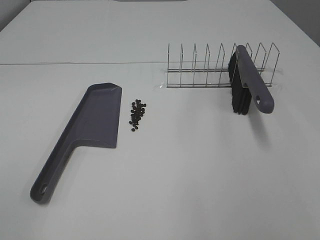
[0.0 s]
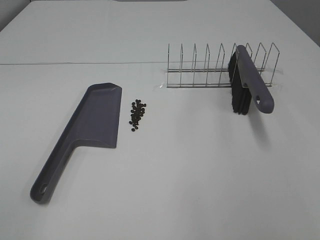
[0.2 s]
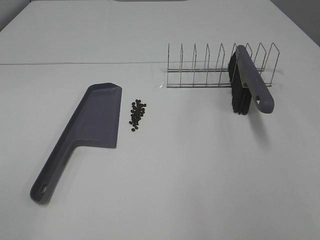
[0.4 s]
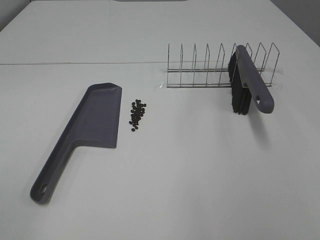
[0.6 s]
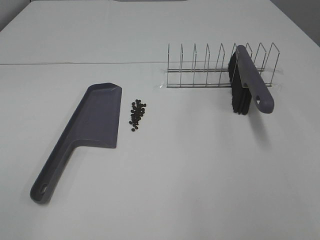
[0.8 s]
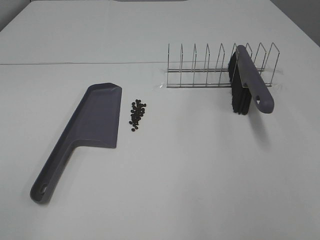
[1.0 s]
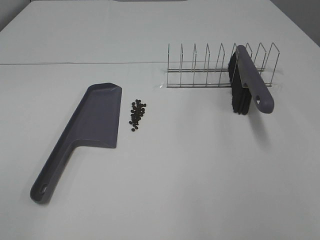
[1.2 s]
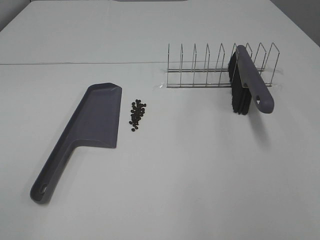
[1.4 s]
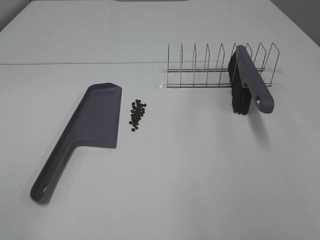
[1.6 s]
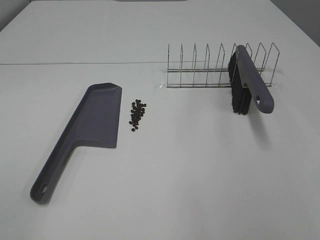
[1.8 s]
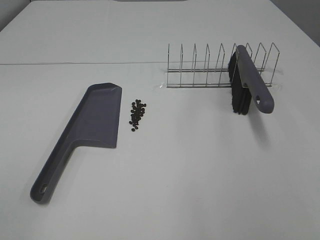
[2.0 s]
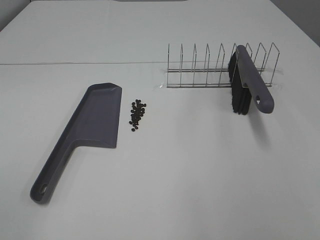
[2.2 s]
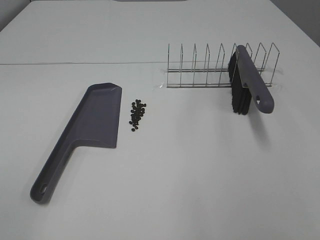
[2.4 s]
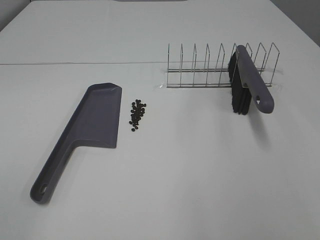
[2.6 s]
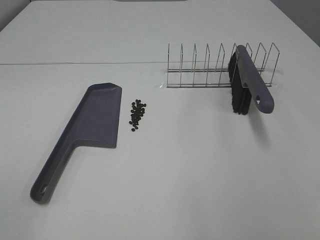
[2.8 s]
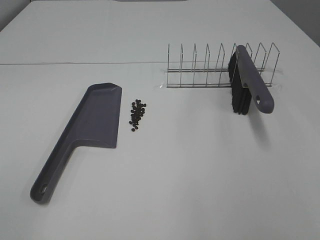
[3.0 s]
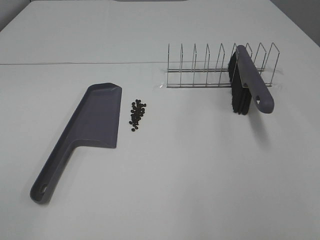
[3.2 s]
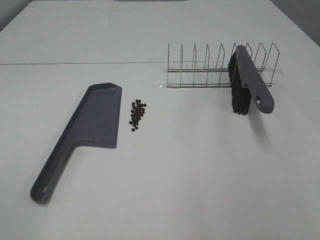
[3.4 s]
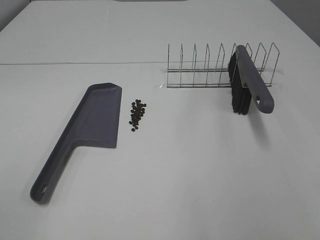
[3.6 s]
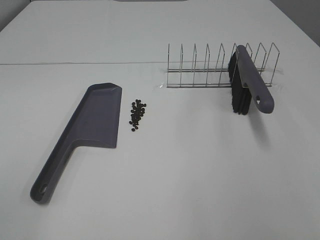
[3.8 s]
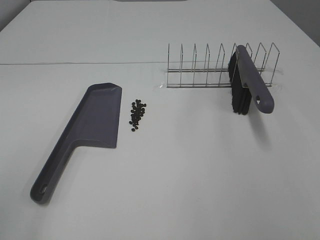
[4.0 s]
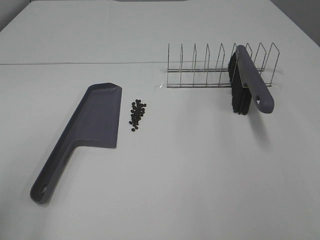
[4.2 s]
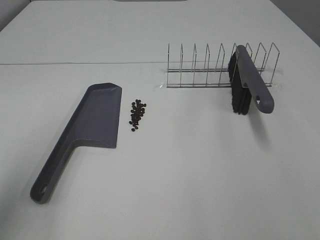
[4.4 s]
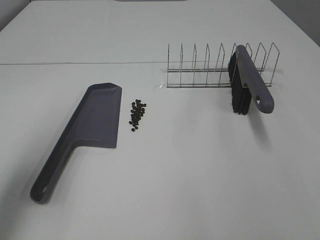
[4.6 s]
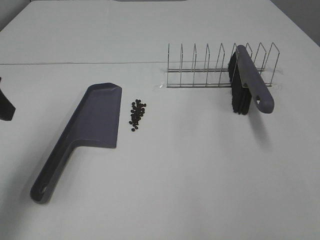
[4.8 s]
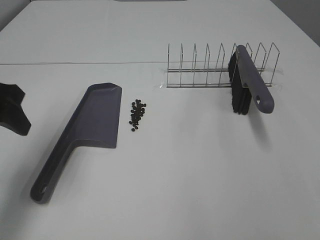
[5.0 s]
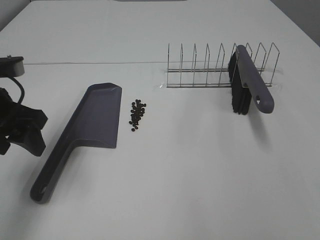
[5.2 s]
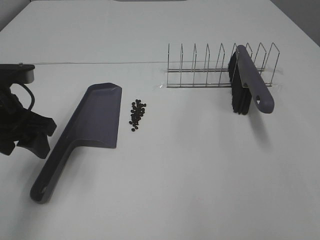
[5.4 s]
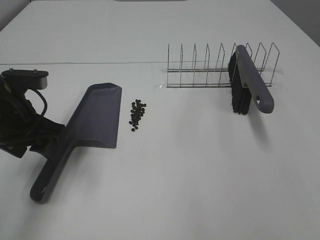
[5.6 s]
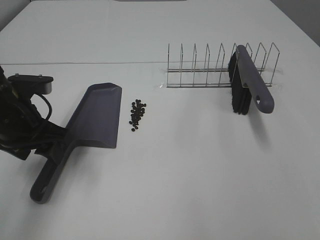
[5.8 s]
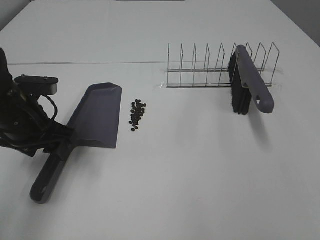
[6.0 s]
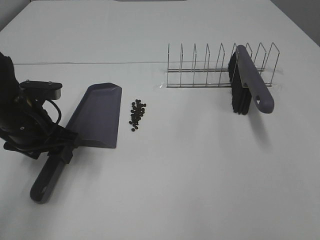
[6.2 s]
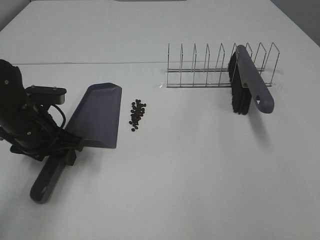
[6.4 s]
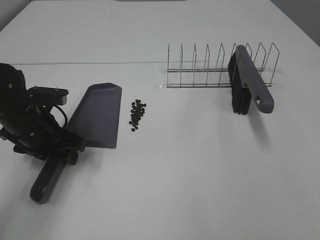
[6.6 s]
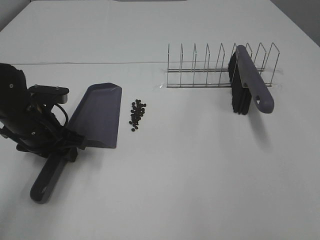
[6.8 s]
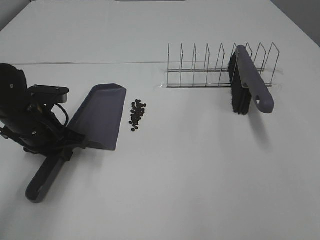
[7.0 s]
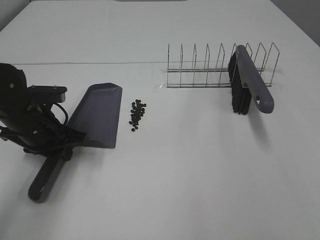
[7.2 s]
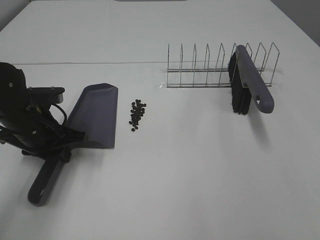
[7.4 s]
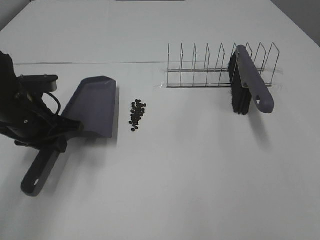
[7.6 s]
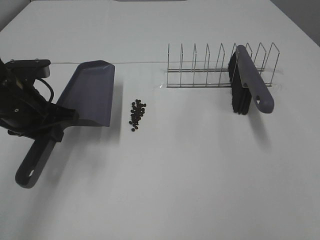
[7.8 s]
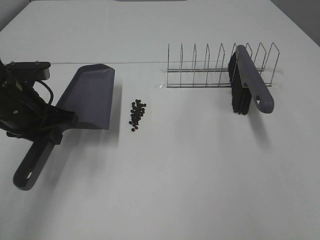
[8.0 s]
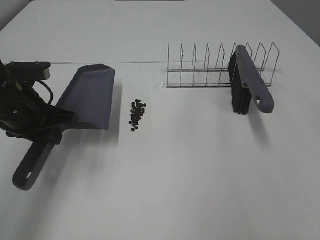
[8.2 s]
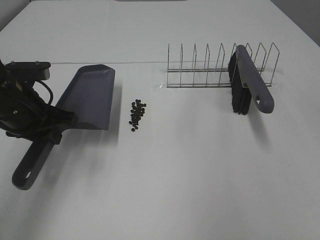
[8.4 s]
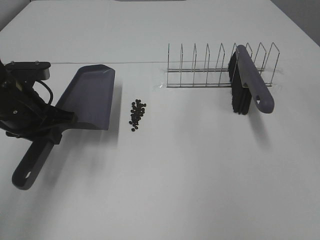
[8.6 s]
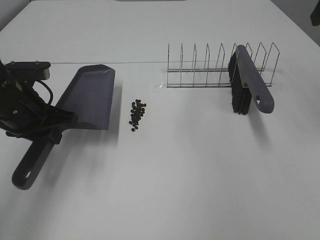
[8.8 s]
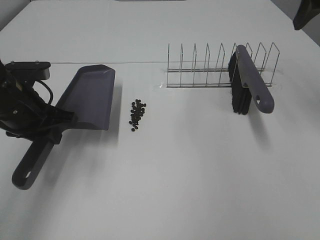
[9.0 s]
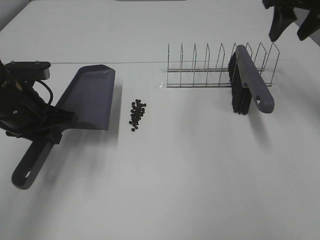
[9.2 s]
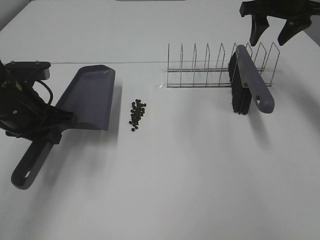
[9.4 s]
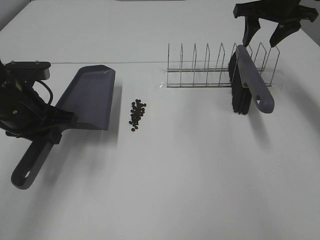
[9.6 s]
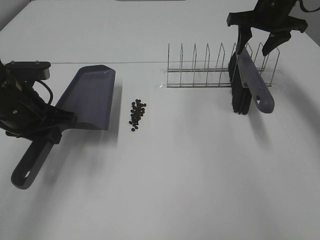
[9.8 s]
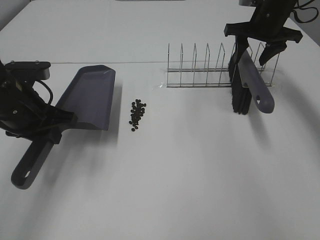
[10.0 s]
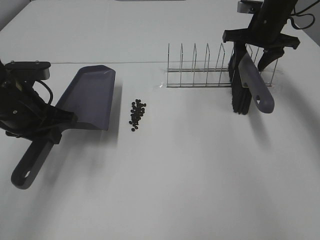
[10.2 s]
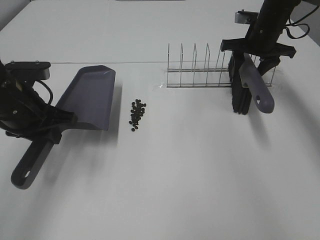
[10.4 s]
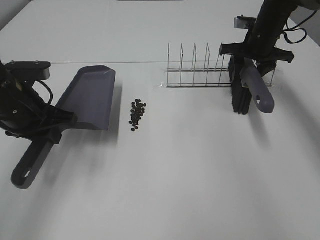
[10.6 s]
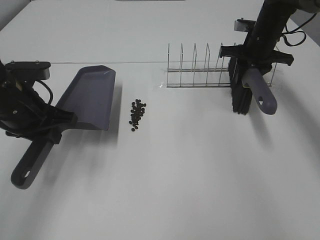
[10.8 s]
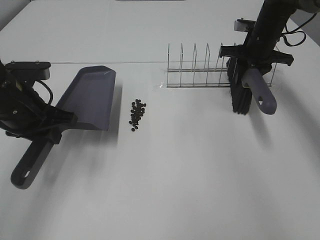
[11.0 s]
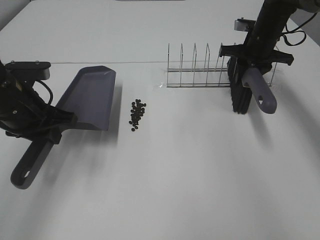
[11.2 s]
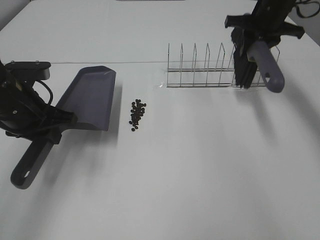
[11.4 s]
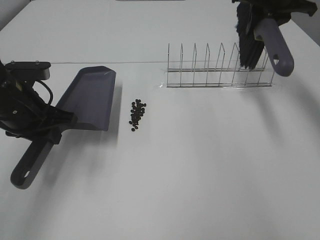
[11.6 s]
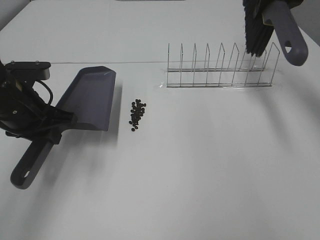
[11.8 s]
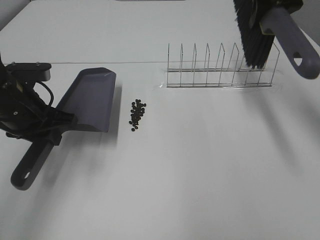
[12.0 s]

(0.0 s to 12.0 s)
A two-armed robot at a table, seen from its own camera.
Task of the whole recording: Sweep Coffee Bean.
Step, 0.0 s - 7.0 s: Left hand: grab the dustpan.
Step, 6.4 s - 11.0 s: Right hand:grab the broom.
0.0 s - 3.0 s: Both grippers stay put.
3.0 s - 4.4 s: The left gripper shifts about 15 cm forward.
4.4 s - 6.0 s: The left gripper goes about 25 cm downward, forward and to the right.
6.0 s - 7.6 s: The left gripper closes up.
7.6 s - 9.0 s: The right gripper travels forward by some 40 cm, and closes.
9.0 s - 10.4 s: The right gripper shifts about 20 cm downward and forward.
10.4 s - 12.0 s: The right gripper is displaced upward and backward by some 15 cm, and closes up.

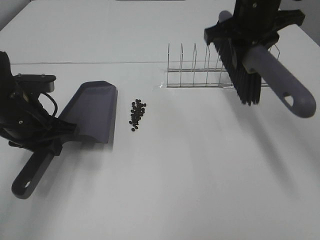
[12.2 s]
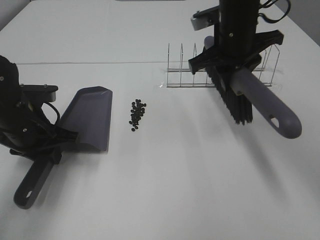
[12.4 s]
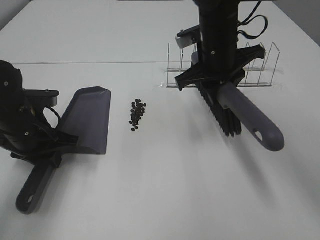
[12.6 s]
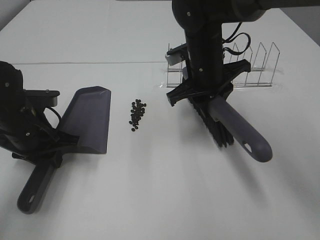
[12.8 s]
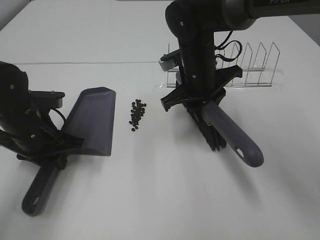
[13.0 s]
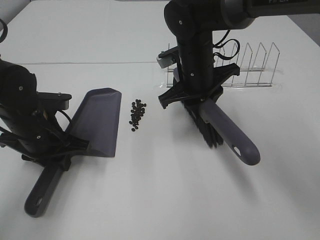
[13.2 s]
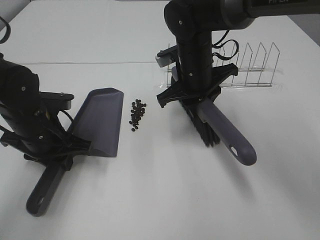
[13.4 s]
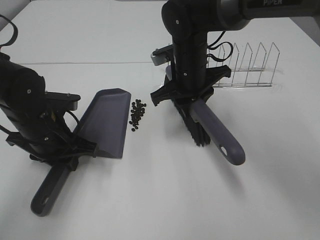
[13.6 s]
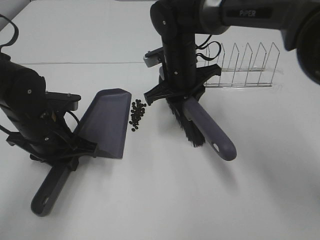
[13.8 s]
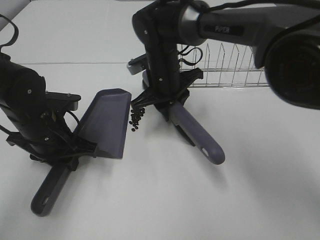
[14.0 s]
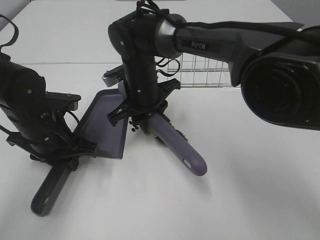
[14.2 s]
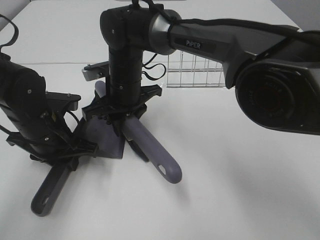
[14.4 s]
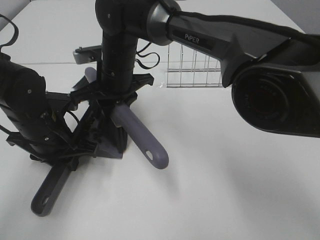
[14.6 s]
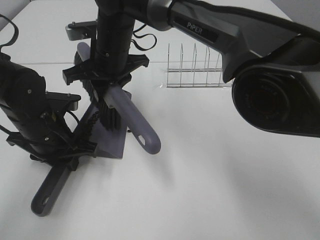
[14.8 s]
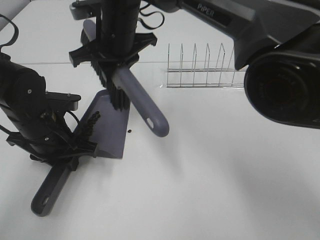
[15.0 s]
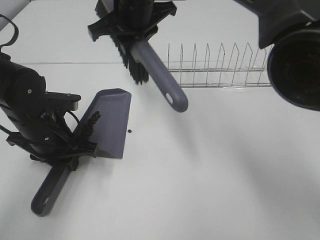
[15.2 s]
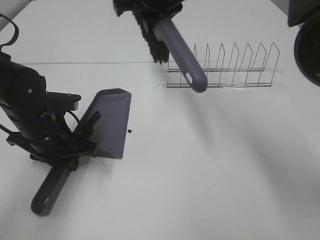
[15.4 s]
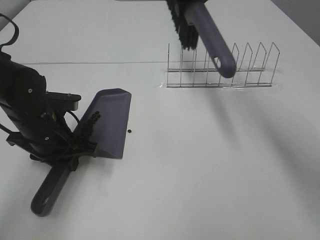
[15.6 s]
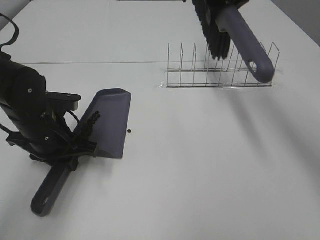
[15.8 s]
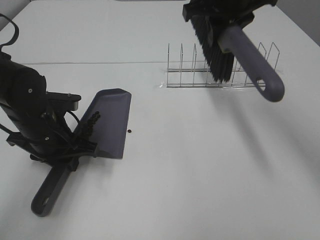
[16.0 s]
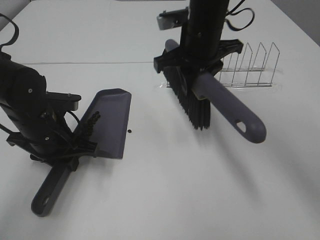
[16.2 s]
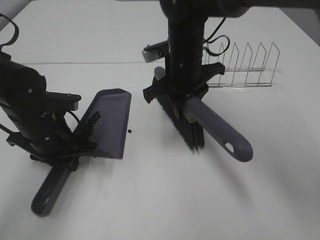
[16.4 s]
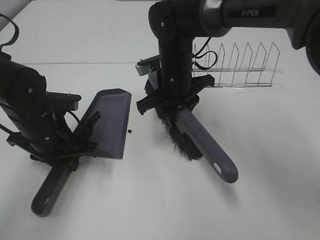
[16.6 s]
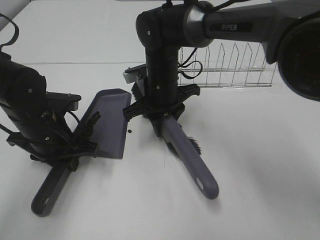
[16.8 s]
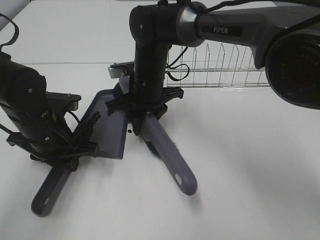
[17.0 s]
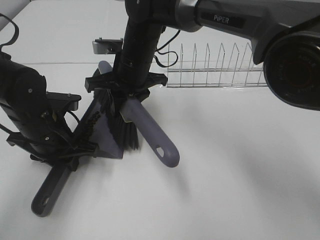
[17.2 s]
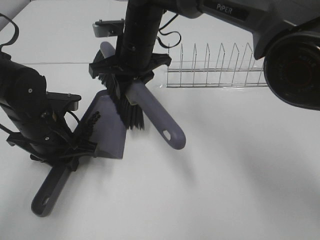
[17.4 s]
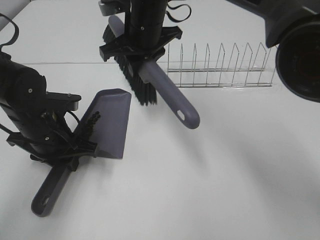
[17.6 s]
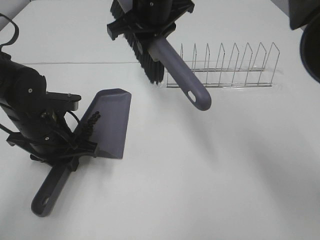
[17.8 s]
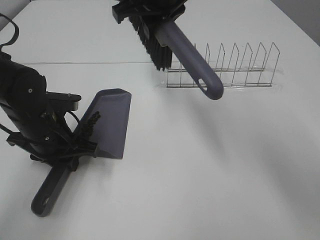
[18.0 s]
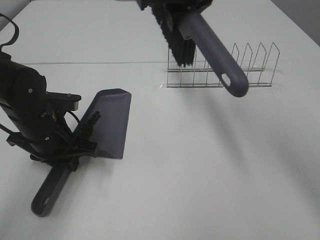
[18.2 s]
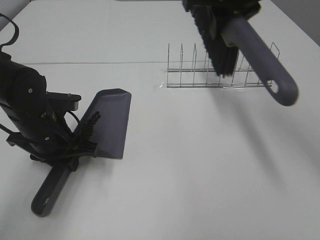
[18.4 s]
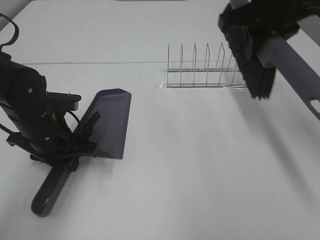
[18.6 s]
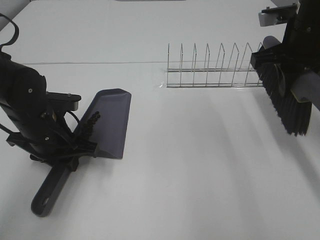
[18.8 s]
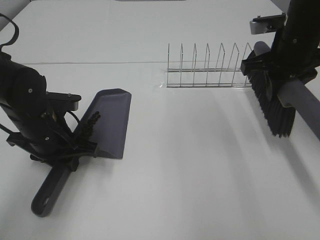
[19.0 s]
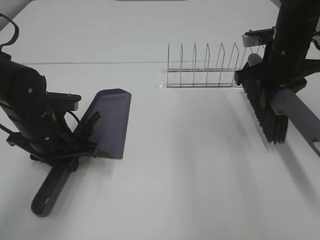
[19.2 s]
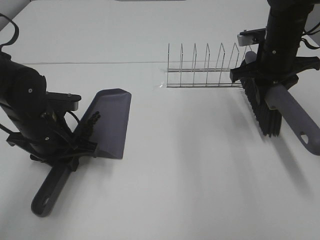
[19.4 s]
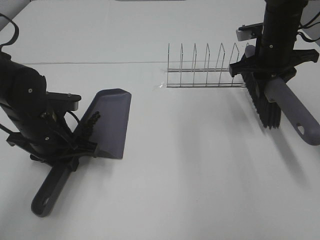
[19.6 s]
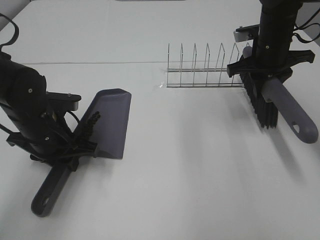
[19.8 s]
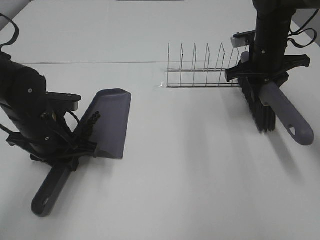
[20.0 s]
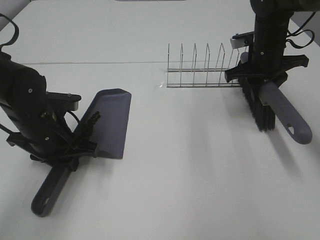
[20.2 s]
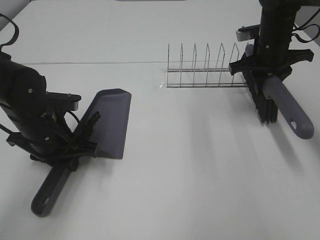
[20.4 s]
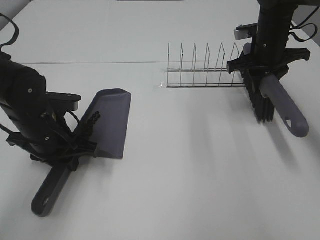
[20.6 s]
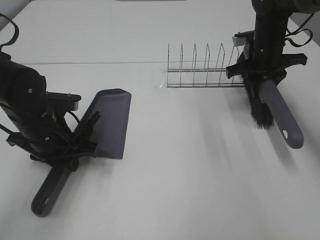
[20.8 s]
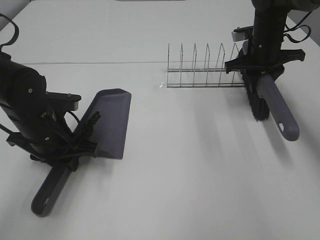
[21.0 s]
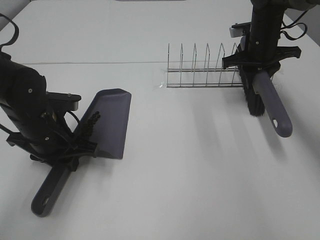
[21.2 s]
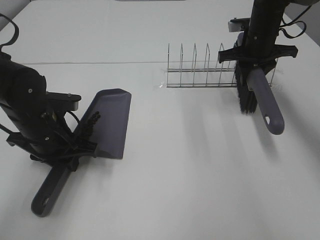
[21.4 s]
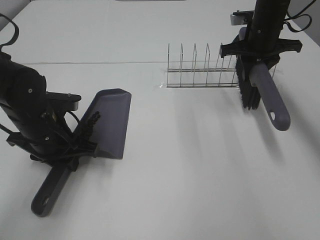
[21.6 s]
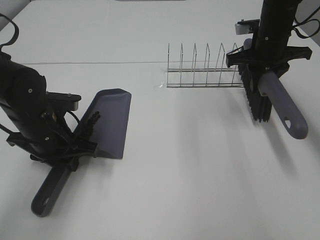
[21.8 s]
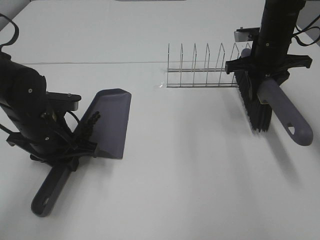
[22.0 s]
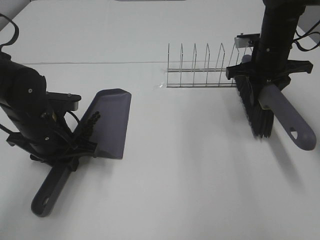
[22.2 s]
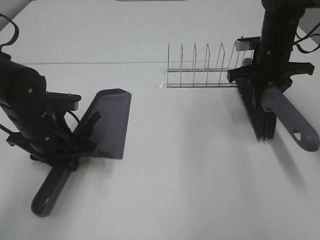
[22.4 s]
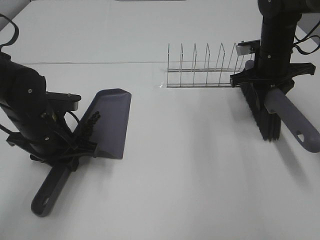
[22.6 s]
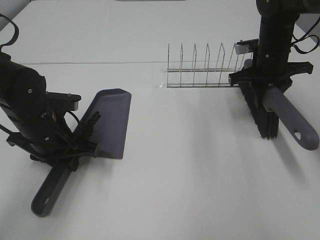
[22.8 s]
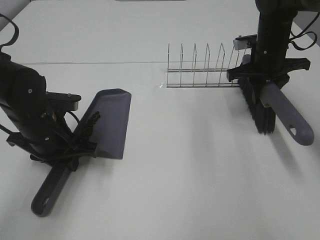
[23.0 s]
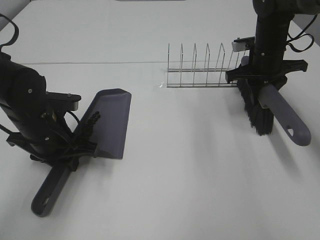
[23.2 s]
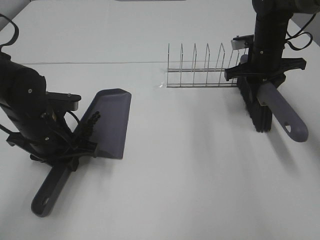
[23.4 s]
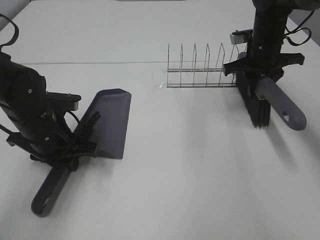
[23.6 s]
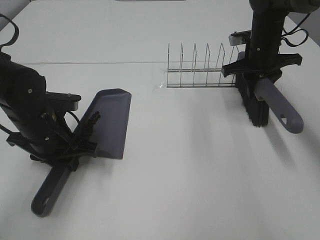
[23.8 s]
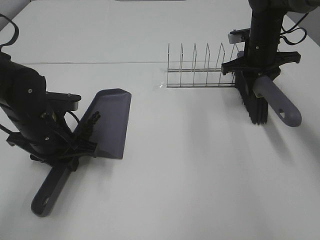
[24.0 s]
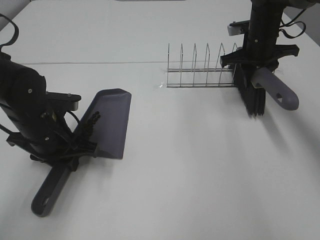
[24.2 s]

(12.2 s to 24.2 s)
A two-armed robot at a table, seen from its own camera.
Task of the whole recording: Sweep Coffee Bean.
Step, 12.2 s - 17.4 s: Right hand:sweep the coffee beans into the dustpan.
12.2 s - 13.8 s: The right gripper goes some 15 cm downward and to the left. Meanwhile the left gripper shifts by approximately 5 cm.
13.8 s - 15.2 s: The right gripper shifts approximately 15 cm upward and to the left.
15.2 s - 16.6 s: The right gripper heads downward and to the right, covering about 15 cm.
16.6 s - 18.2 s: The right gripper moves upward, some 20 cm.
18.2 s - 19.8 s: The right gripper shifts some 20 cm to the right and downward.
19.8 s - 21.2 s: The right gripper goes about 5 cm forward.
21.2 s - 22.6 s: The right gripper shifts approximately 5 cm backward.
22.6 s - 24.2 s: The right gripper is displaced forward by approximately 5 cm.
